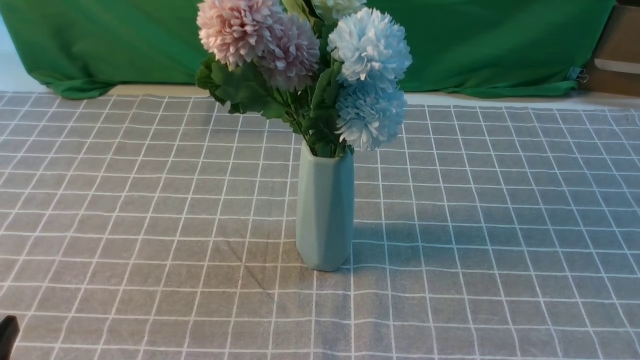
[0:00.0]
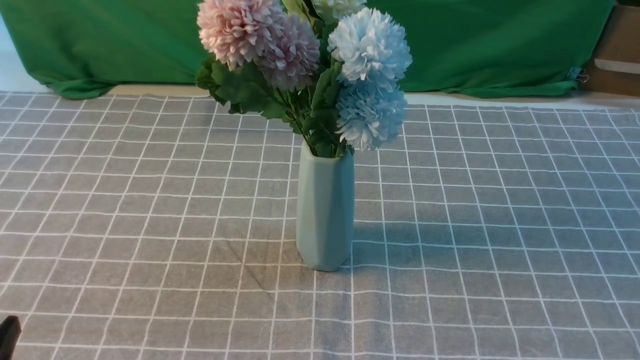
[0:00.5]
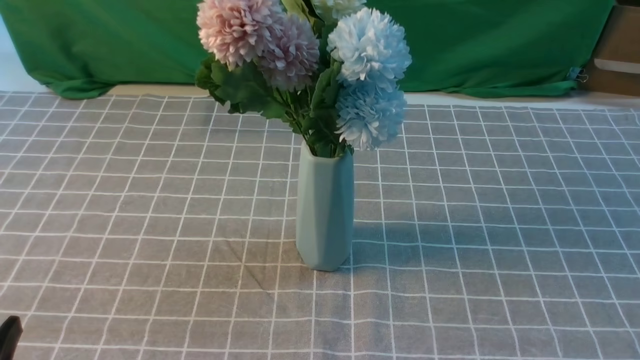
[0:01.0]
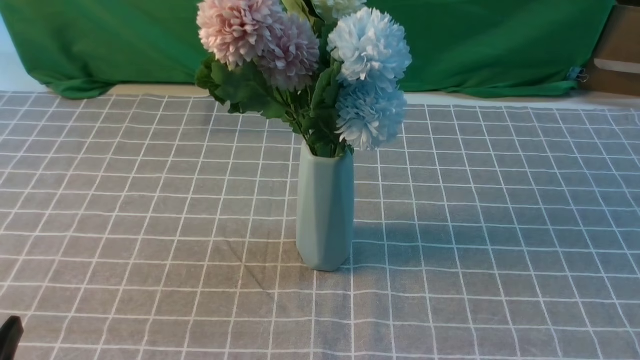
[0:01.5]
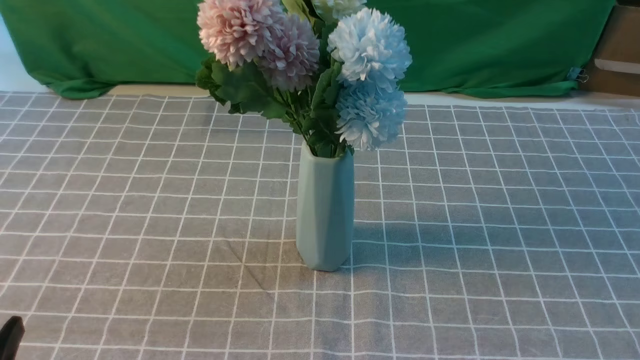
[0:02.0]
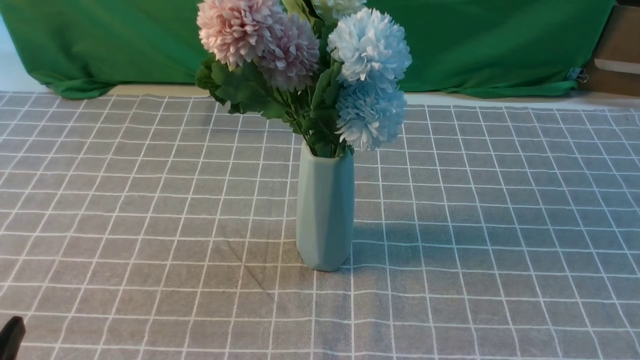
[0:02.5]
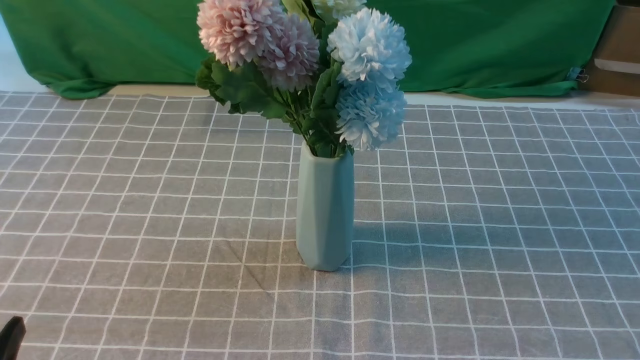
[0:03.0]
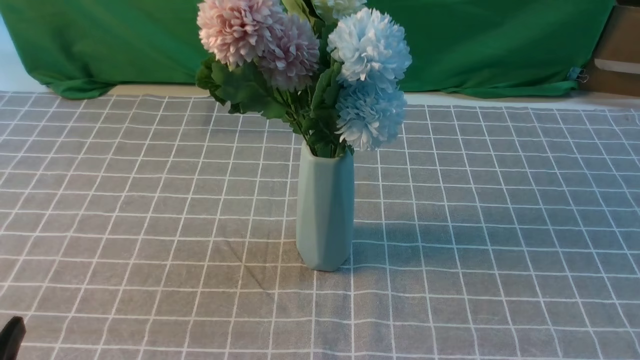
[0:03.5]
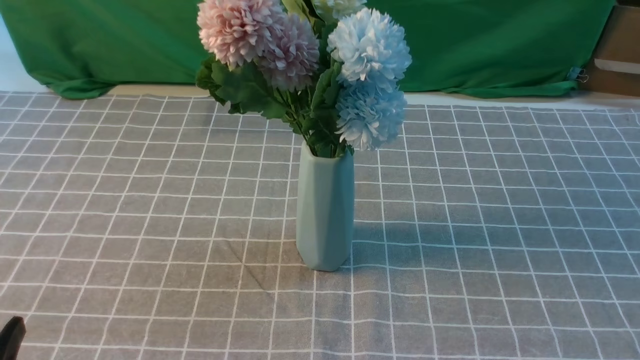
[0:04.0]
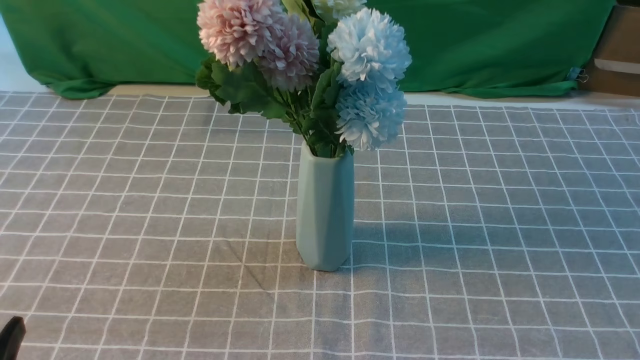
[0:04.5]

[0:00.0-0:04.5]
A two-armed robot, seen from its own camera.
Task of the whole recording: insert the flowers into the vase on the table with the grey tablecloth.
0:02.0 to 0:04.5: Both grippers stay about where they are.

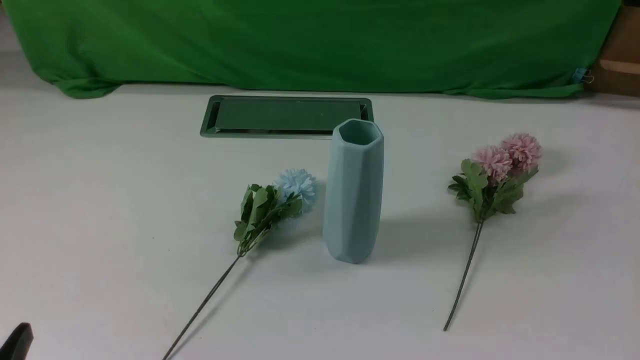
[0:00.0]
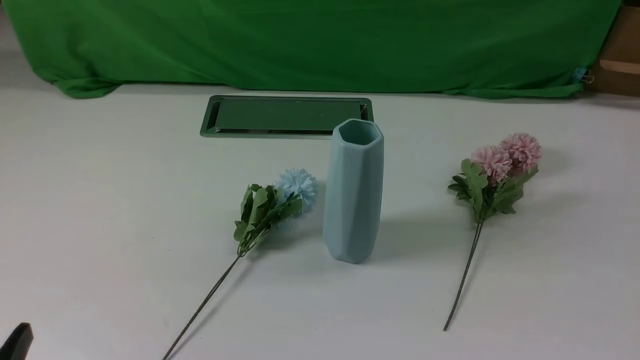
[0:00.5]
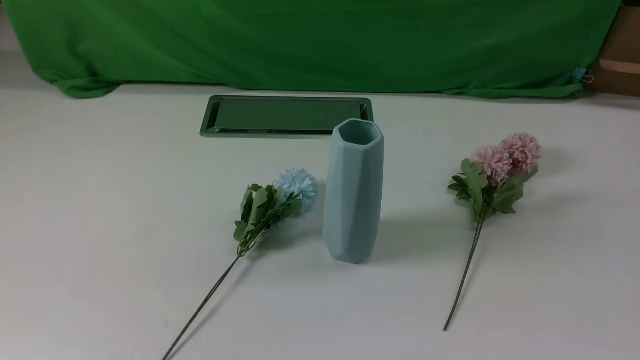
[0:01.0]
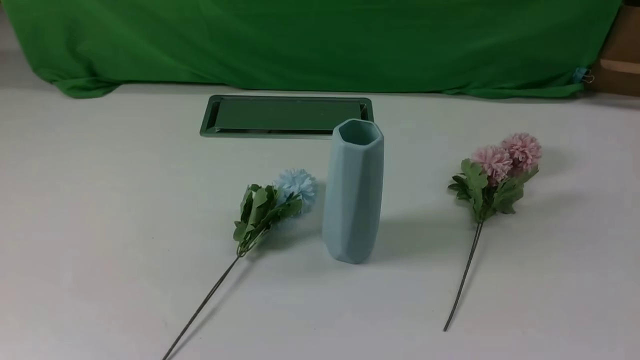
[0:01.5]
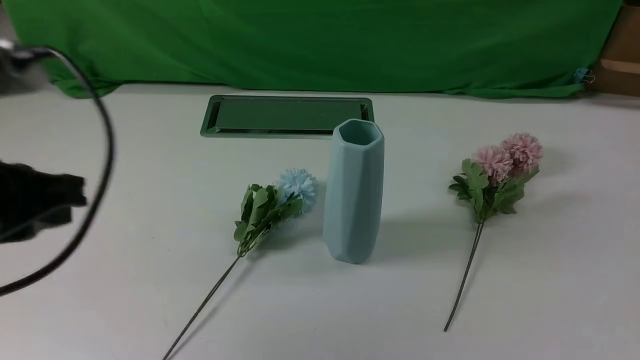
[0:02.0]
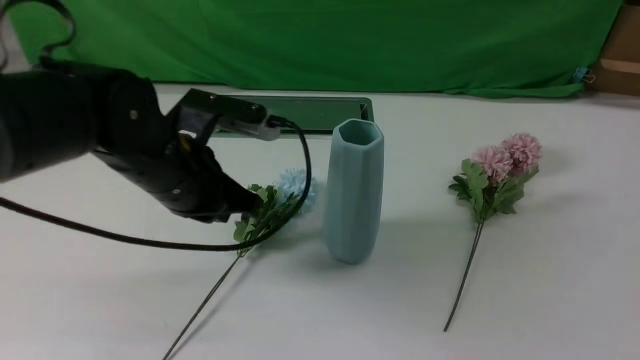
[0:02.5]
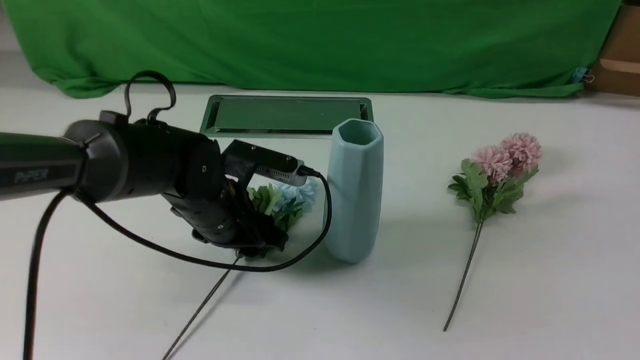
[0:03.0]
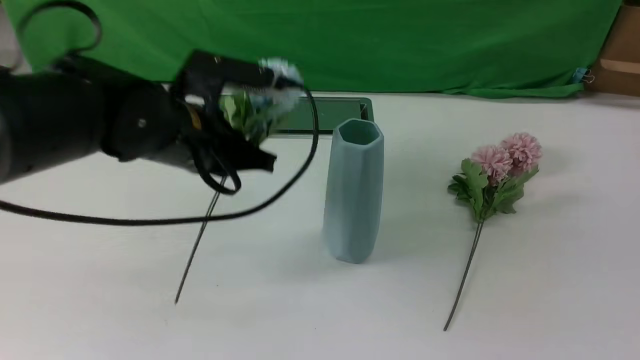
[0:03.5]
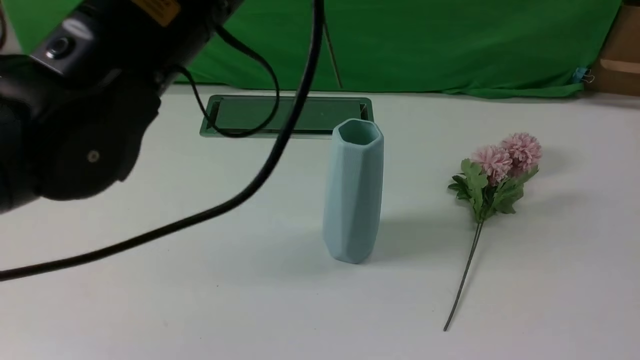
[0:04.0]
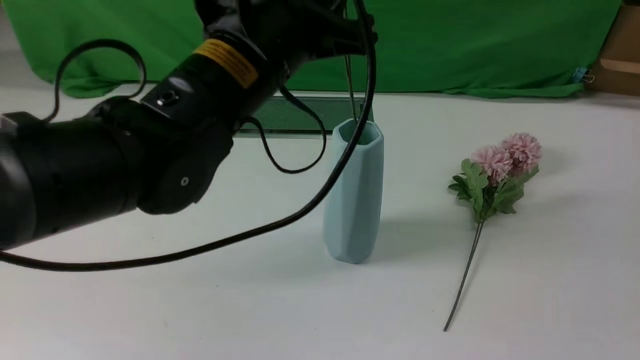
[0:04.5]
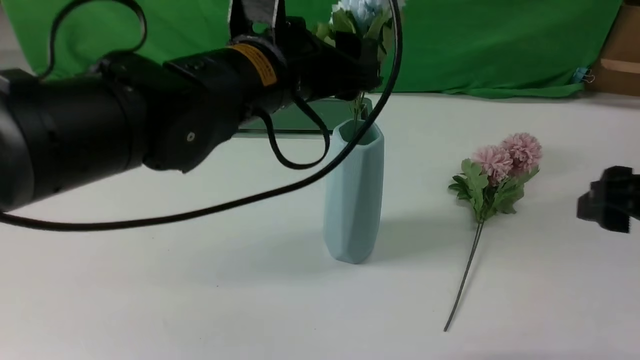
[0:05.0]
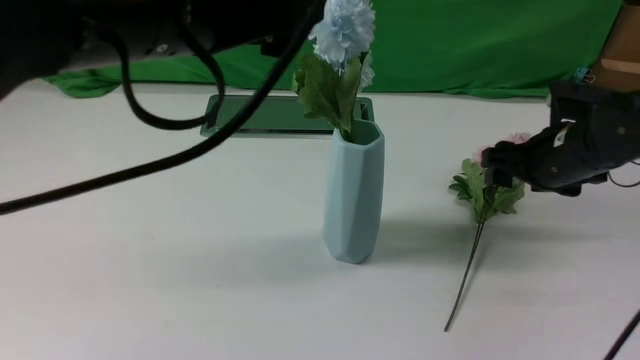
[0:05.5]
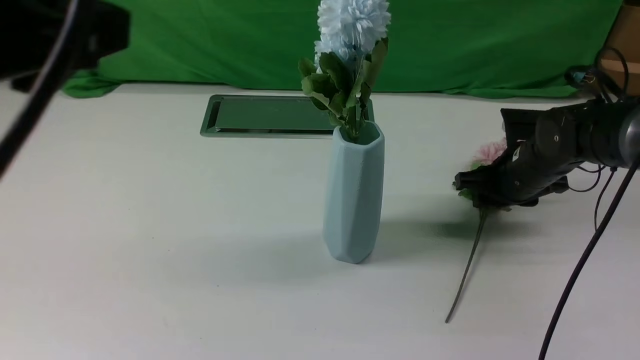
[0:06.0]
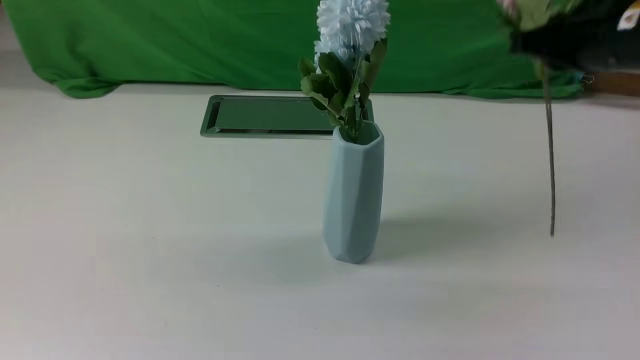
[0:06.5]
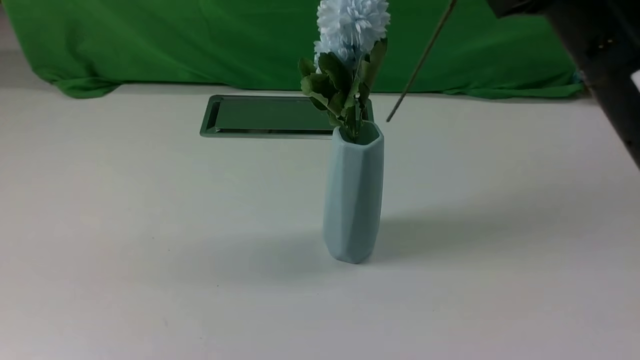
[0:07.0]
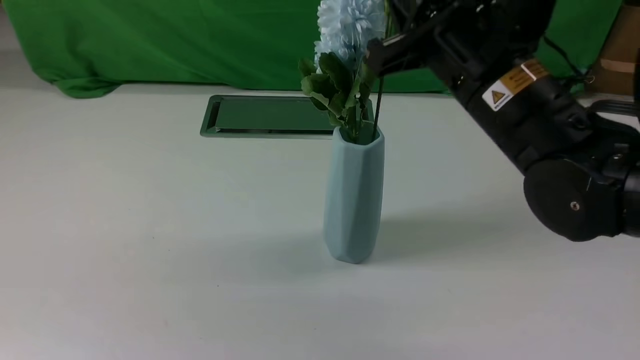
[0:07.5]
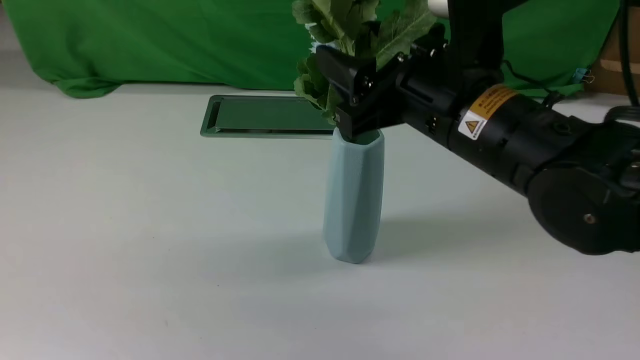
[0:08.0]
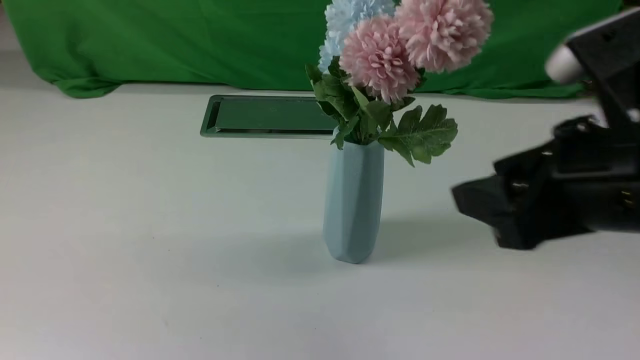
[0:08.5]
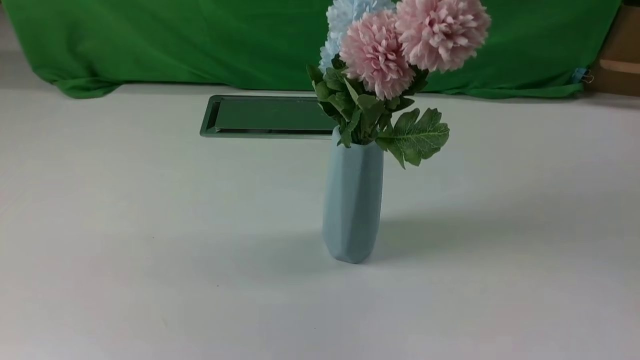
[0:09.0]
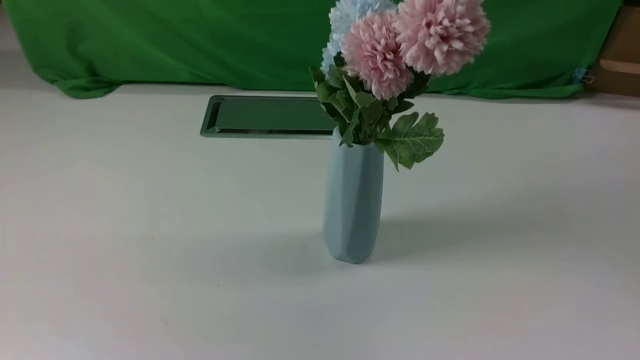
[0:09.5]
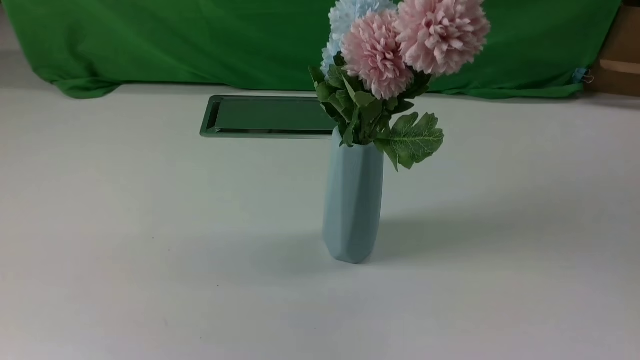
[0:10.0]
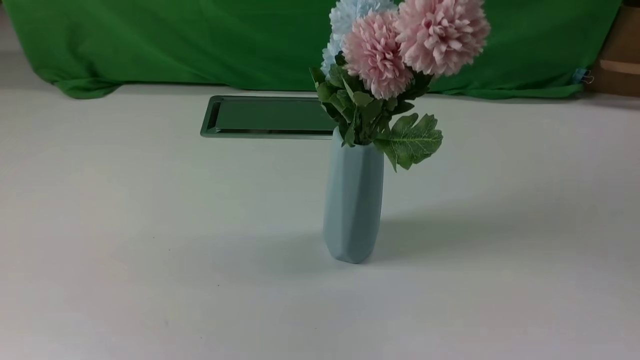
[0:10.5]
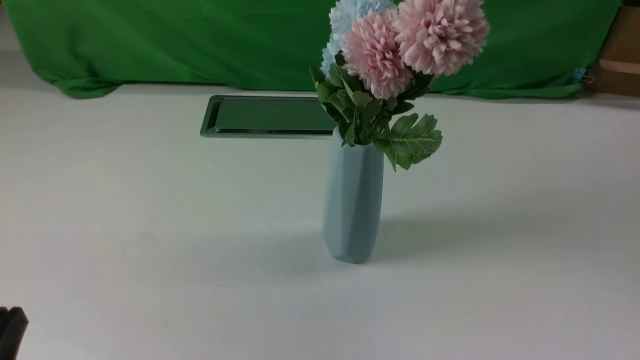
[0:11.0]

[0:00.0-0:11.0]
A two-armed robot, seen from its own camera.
Task of the whole recording: insert the flowers into the vase on the white table.
Step, 0:00.0 to 0:03.0: use the left arm to grab a bunch of fresh flowers.
Step, 0:03.5 to 0:05.0: use the left arm to insert the flowers into the vase.
Step, 0:05.5 to 0:06.0: use the right arm to grab a bunch of fresh flowers.
Step, 0:06.5 to 0:08.0: use the right arm to insert the flowers into the vase.
0:00.0 to 0:02.0: The right gripper is displaced upward by about 10 cm. The left gripper heads upward and forward, covering some 20 cm, and closes.
0:02.0 to 0:03.5: The left gripper moves forward and to the right, some 15 cm, goes downward and returns, approximately 15 cm each way, and opens and closes again, while the right gripper goes about 10 cm upward and forward.
0:03.5 to 0:05.5: The left gripper moves up and down over approximately 15 cm, changing direction 2 times, and opens up; the right gripper shifts about 30 cm forward and downward, and opens.
0:05.5 to 0:07.5: The right gripper moves up and down over about 25 cm, changing direction 2 times, and closes its fingers. The left gripper travels backward and to the left by about 20 cm, and closes its fingers.
0:07.5 to 0:09.0: The right gripper is displaced backward and to the right by about 35 cm, and opens and closes again.
0:09.0 to 0:11.0: The left gripper shifts roughly 25 cm downward.
